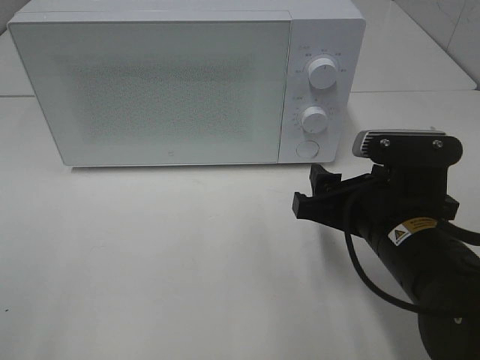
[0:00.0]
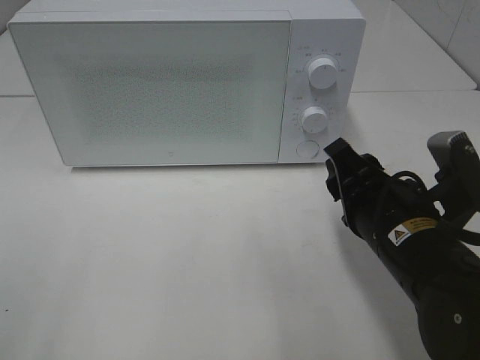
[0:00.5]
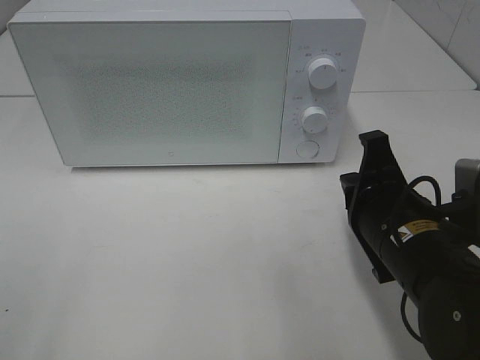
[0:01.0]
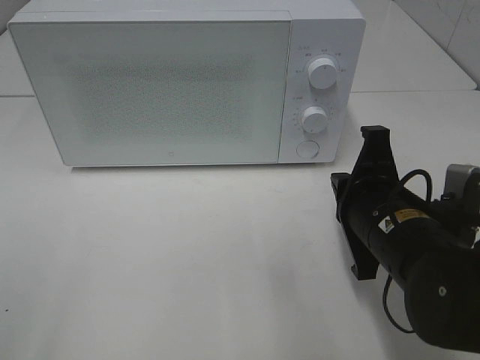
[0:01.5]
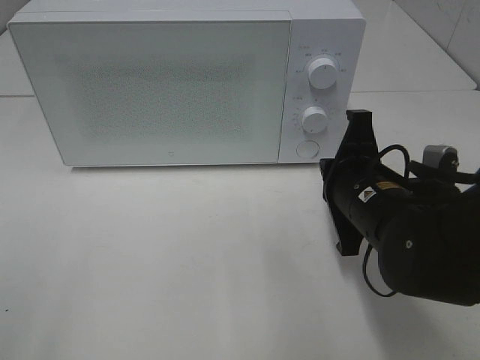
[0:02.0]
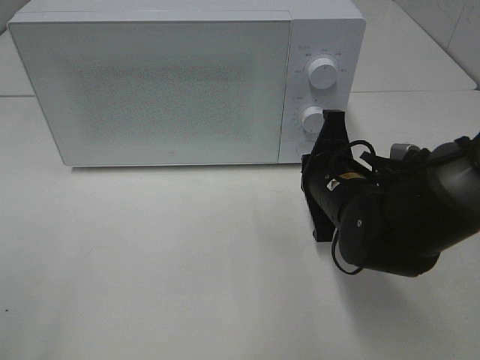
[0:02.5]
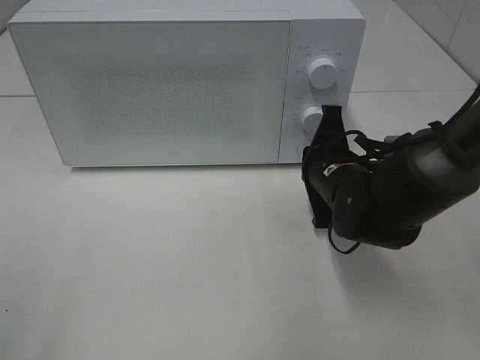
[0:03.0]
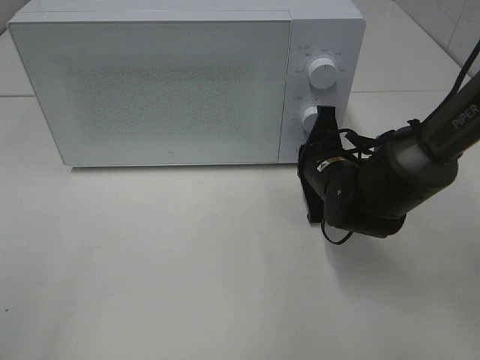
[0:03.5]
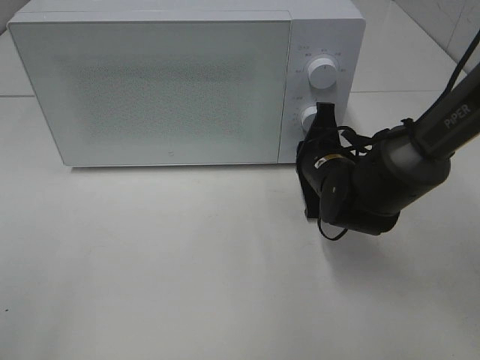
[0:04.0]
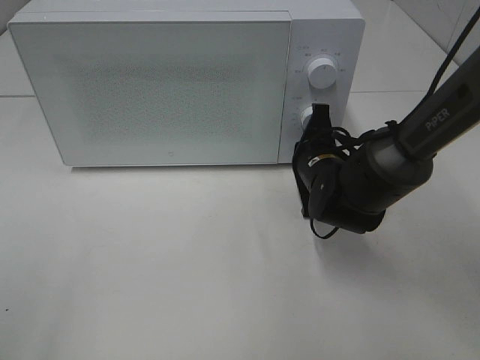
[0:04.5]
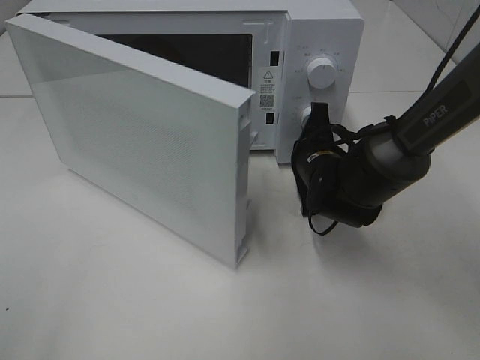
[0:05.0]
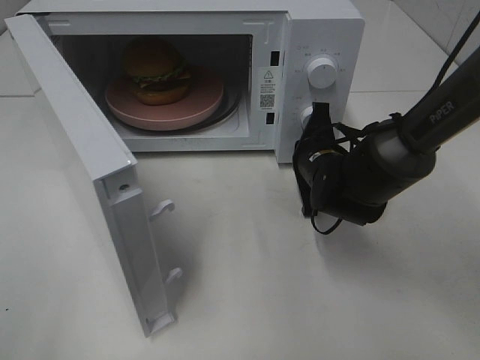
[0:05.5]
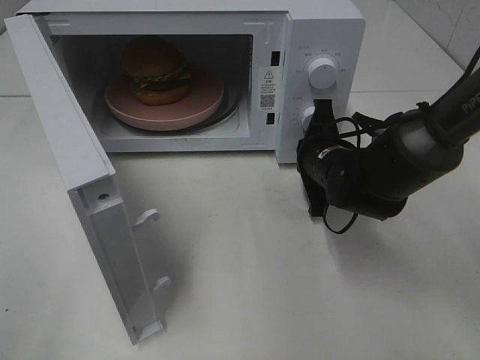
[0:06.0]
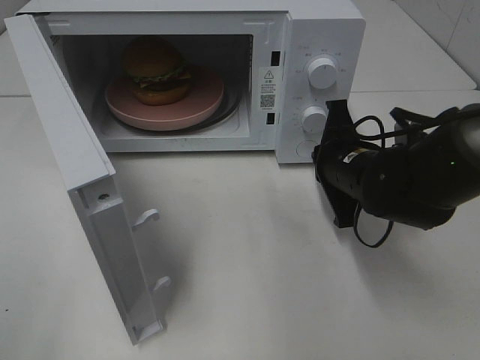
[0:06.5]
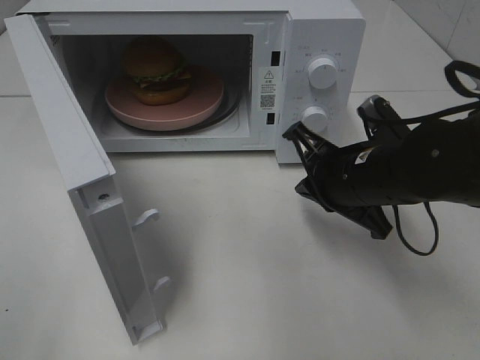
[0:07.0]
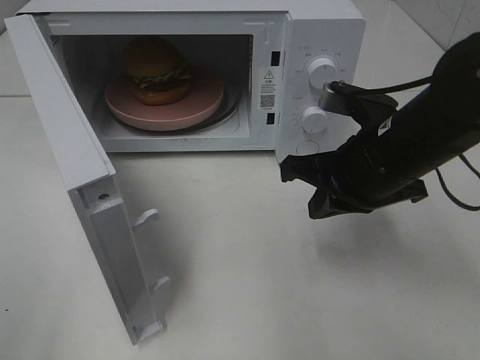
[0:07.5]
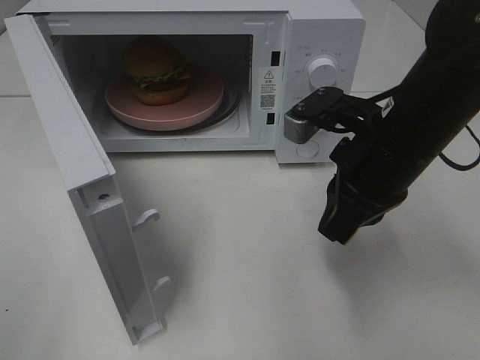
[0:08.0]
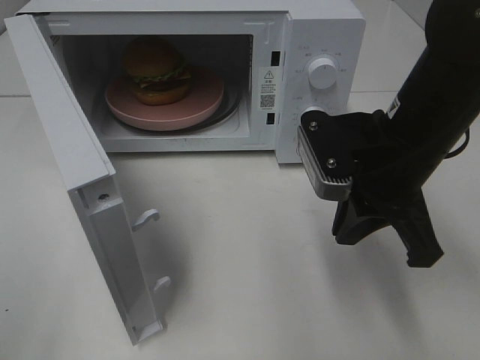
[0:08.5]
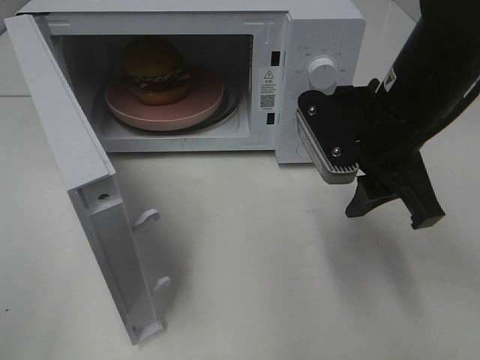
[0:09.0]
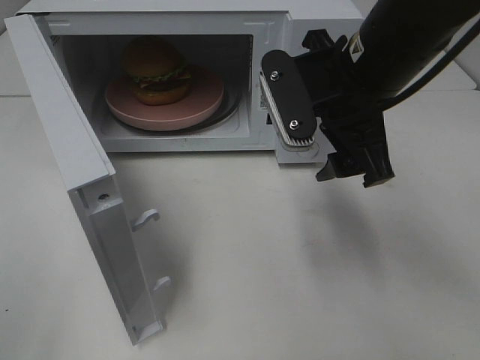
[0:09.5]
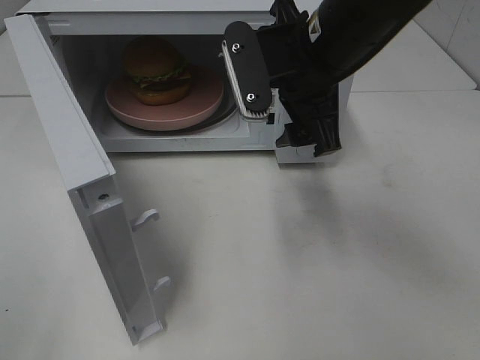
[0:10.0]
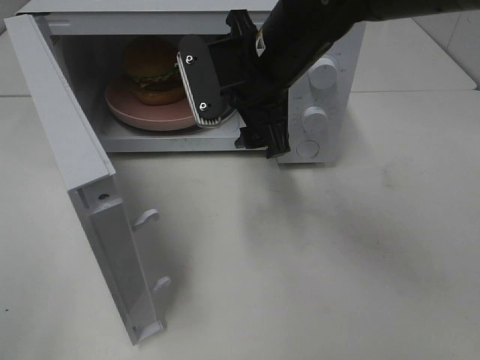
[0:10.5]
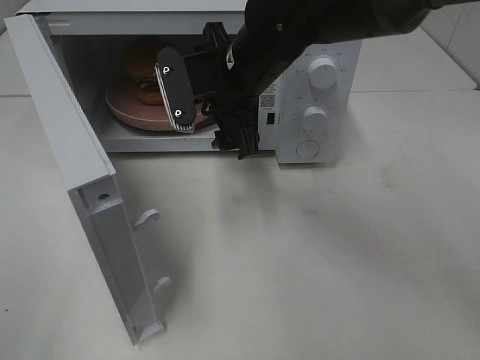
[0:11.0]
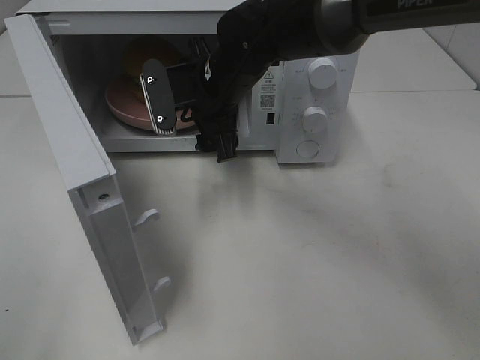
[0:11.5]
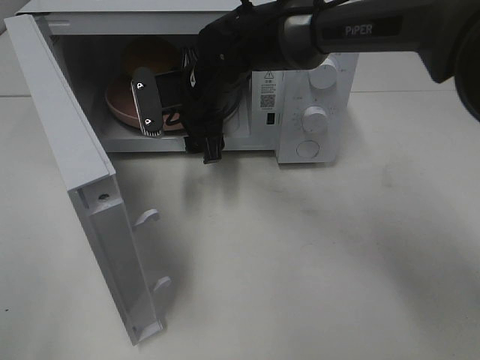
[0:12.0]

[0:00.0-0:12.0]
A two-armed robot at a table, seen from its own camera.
Task of the whole recording: Heat the burger.
Step, 0.0 to 6.0 s: Right hand: press the switch.
0.0 to 2.0 s: The right gripper closes its fingers.
2.0 to 4.0 s: The right gripper travels forward and downward by roughly 10 cm.
6.0 to 8.0 s: The right gripper shifts about 15 cm upward and backward.
8.0 to 10.0 s: The right gripper shifts about 10 cm to the left, forward and upward, and opens up.
10.0 to 12.0 s: The right gripper is displaced to the left, forward and downward by some 15 cm.

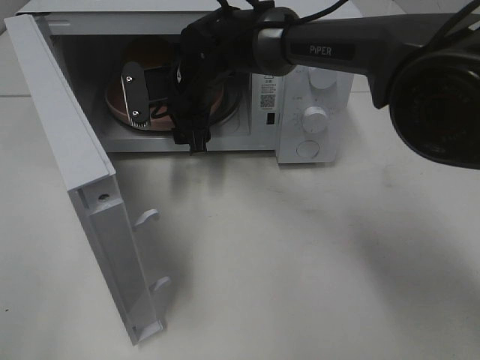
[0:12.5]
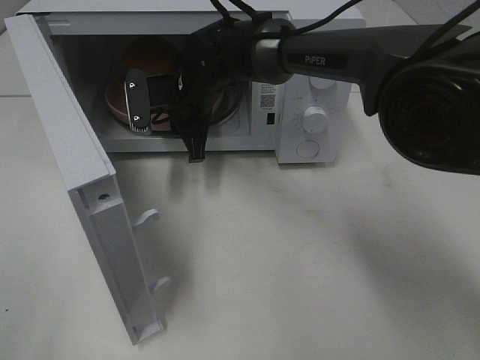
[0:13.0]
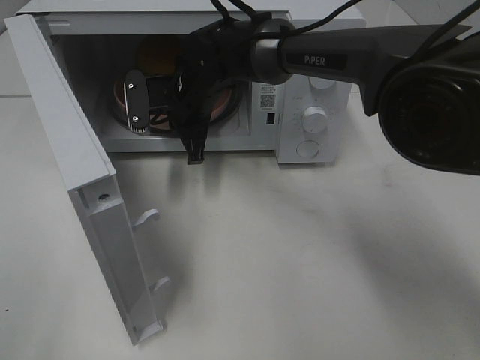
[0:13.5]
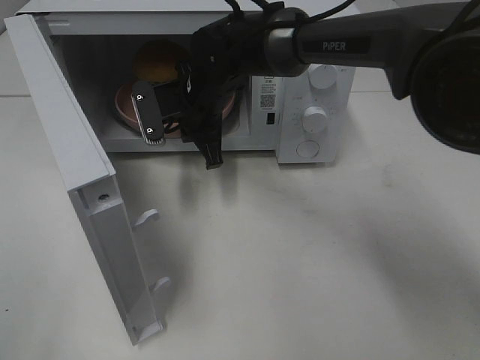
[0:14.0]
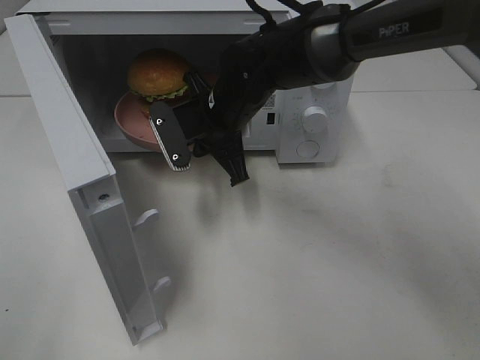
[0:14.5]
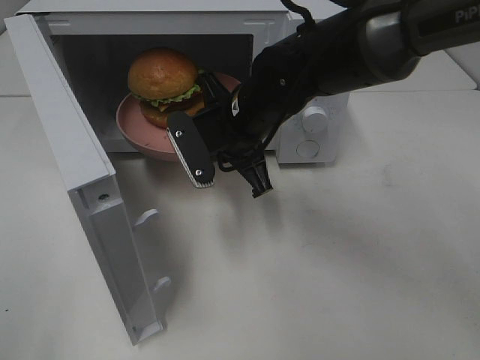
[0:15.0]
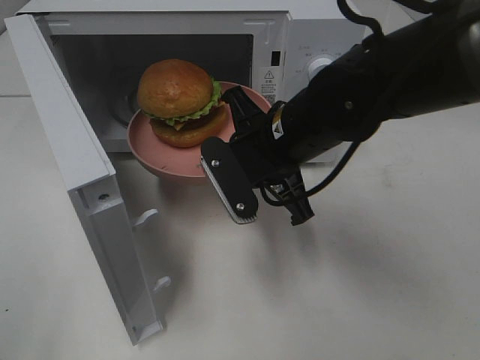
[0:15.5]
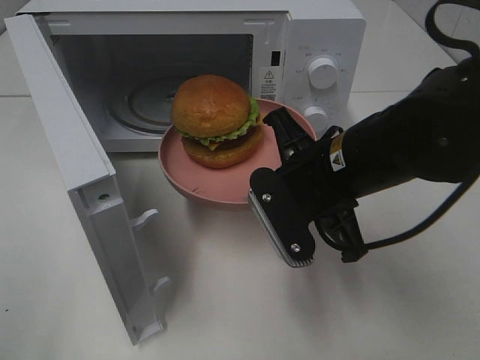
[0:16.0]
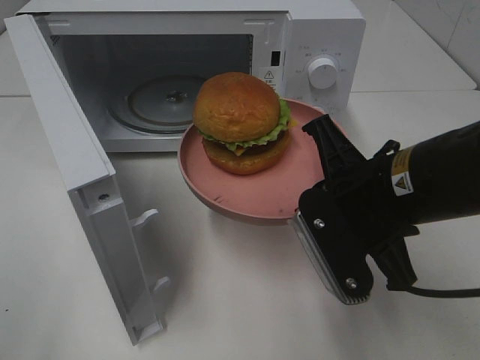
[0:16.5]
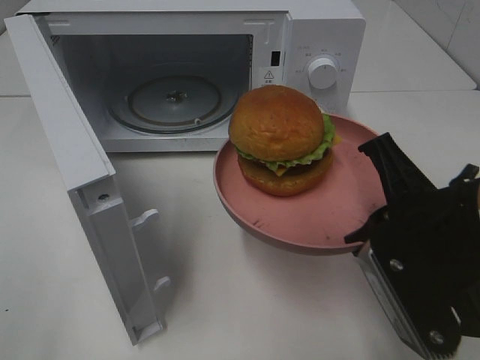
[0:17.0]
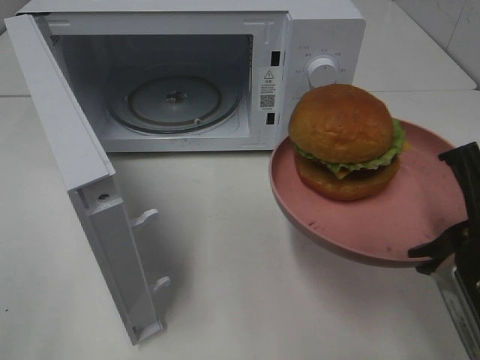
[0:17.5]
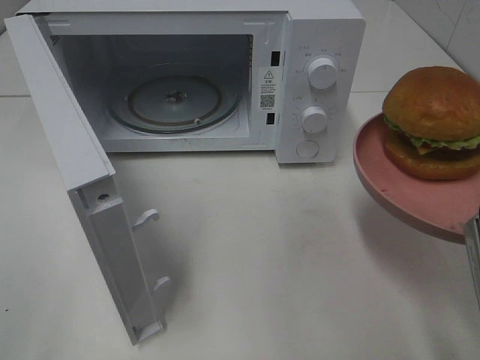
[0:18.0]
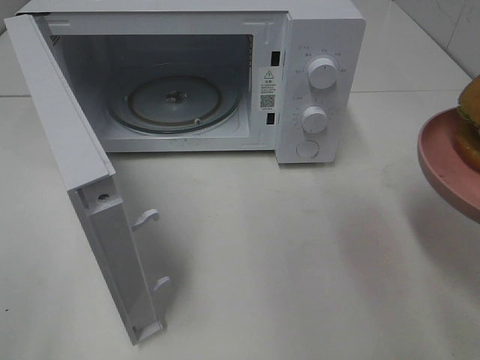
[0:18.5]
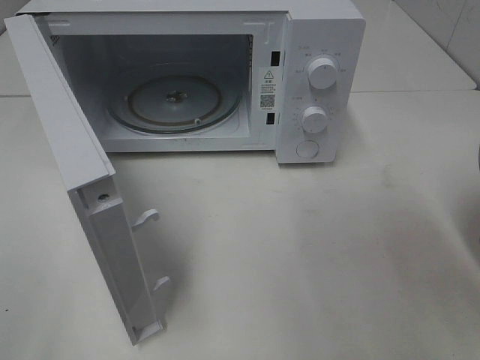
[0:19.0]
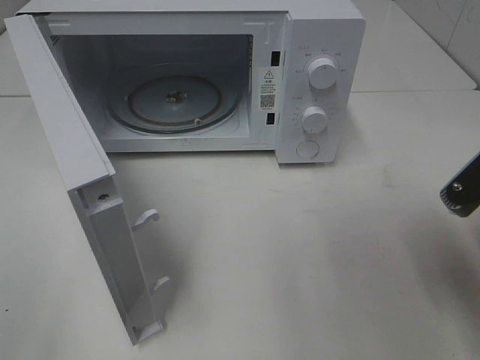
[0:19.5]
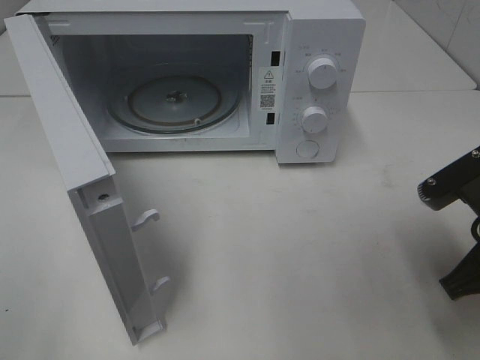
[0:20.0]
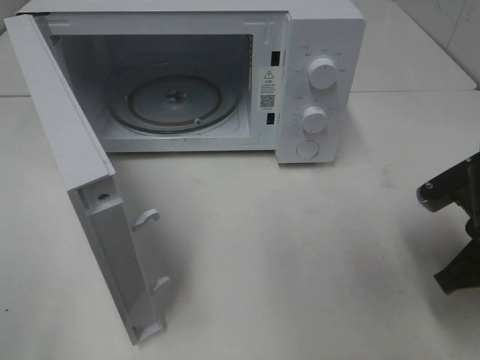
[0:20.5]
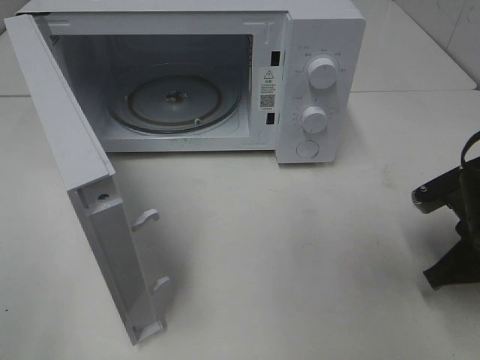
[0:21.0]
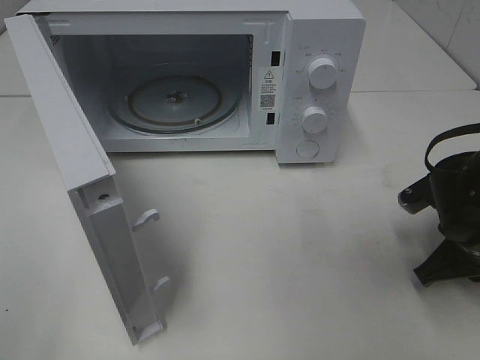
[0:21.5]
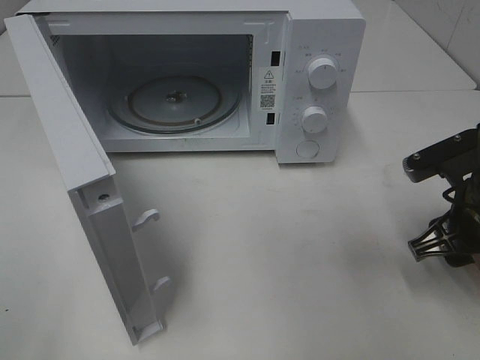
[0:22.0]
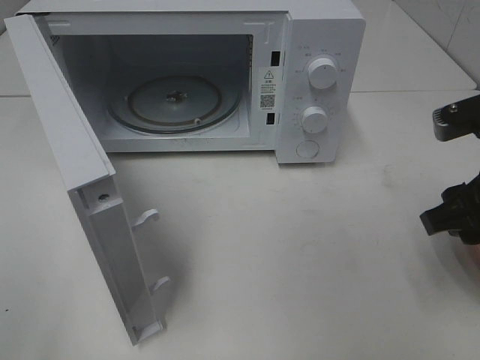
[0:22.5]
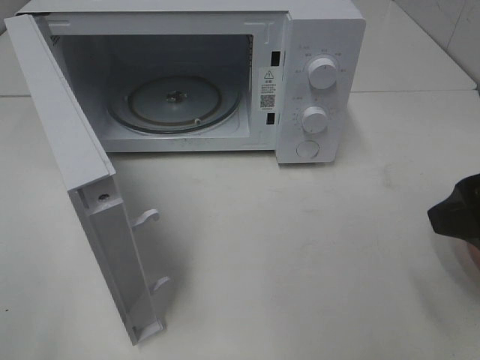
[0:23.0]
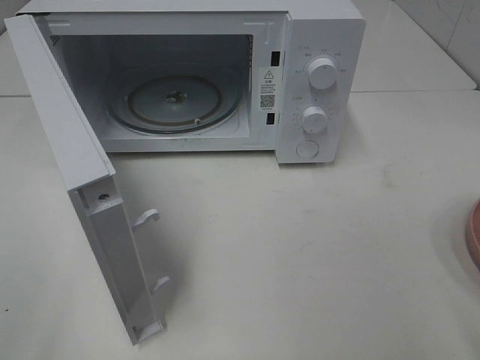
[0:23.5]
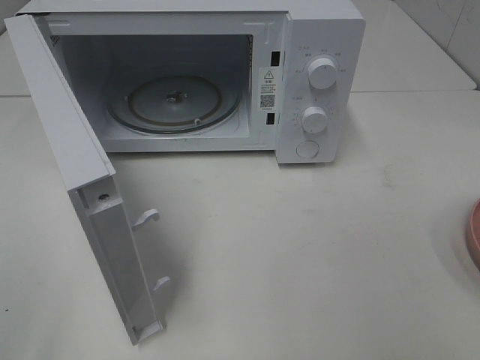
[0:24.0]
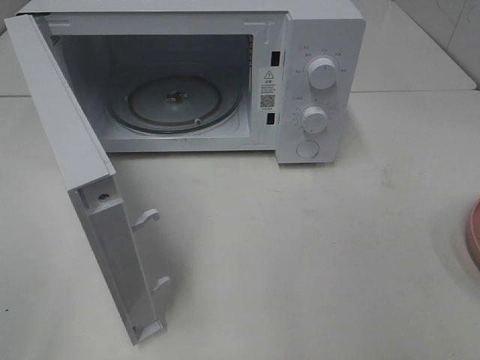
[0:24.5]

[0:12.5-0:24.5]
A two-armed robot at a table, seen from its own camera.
Task of the whole recording: Heat the burger.
Step, 13.5 to 21.5 s: Right hand: place the plate on the table.
12.5 to 14.5 s: The right gripper moves backward, approximately 5 cm, and closes its fingers.
14.5 to 16.5 s: The right gripper heads backward and to the right, covering about 20 cm.
16.5 to 18.5 s: The right gripper is displaced to the right and backward by some 15 cm.
18.5 to 20.5 s: The right gripper shifts approximately 10 cm downward and forward.
20.5 to 22.5 s: The right gripper shifts approximately 10 cm upward, and opens.
22.5 to 24.5 s: The right gripper shifts approximately 20 cm backward.

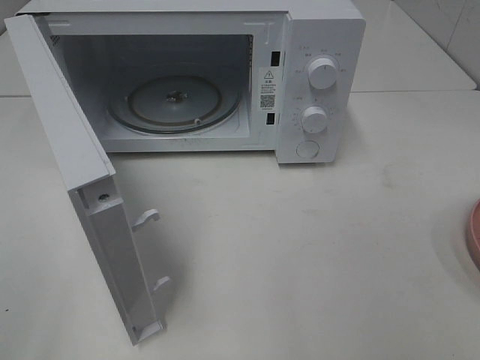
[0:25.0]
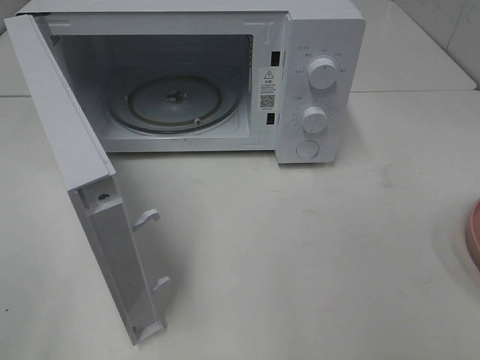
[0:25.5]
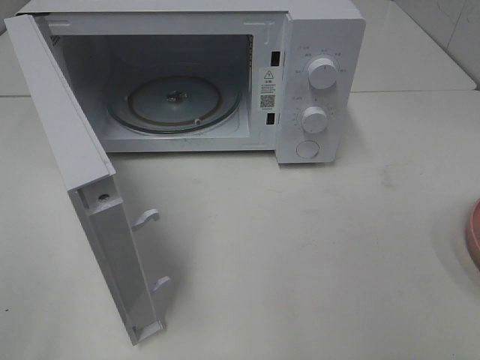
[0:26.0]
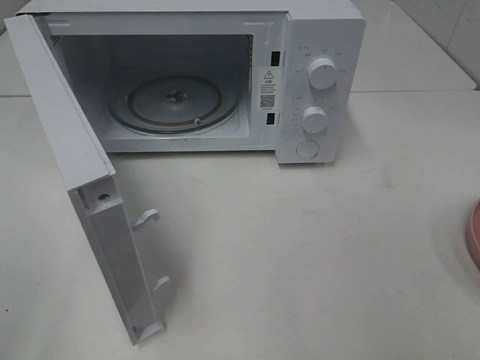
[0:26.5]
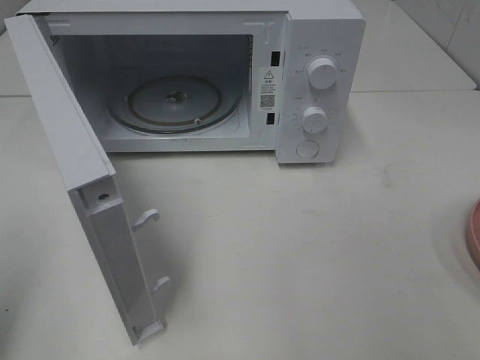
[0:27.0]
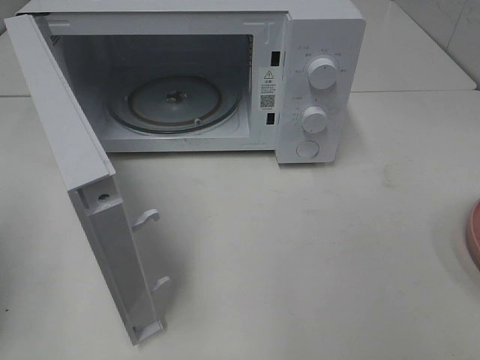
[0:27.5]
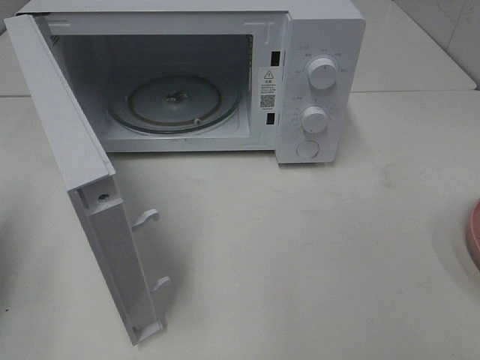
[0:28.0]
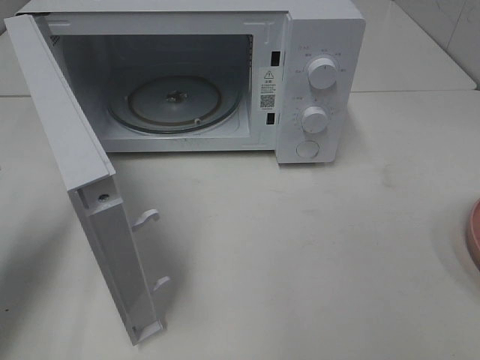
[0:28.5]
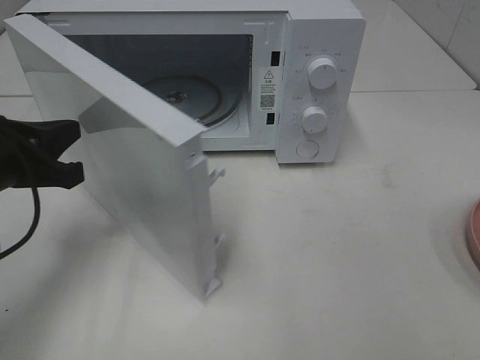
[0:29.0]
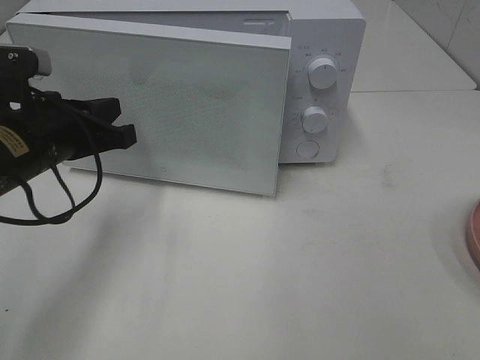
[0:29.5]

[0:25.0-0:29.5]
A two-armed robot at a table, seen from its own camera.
Task of the whole recording: Heat the burger.
27.0 to 29.5 s: The left gripper is displaced forward, to the right and downward by approximately 25 cm.
